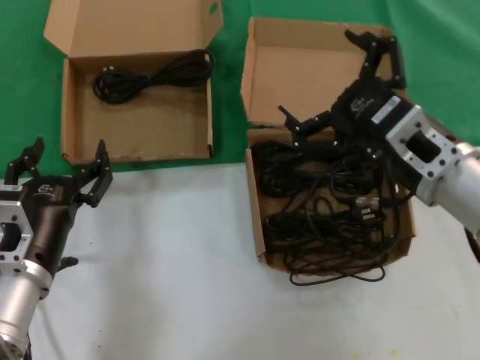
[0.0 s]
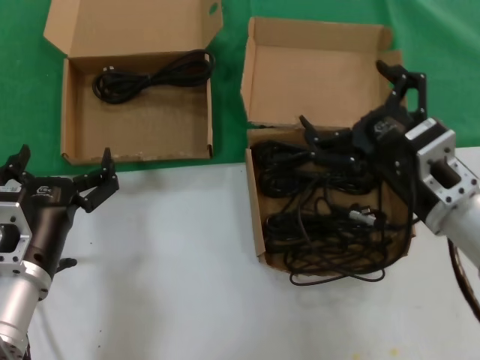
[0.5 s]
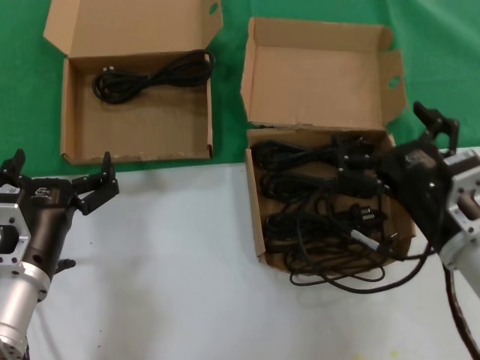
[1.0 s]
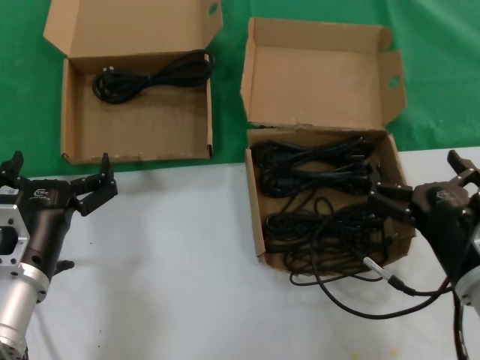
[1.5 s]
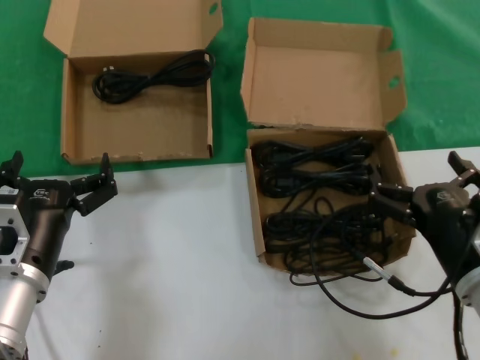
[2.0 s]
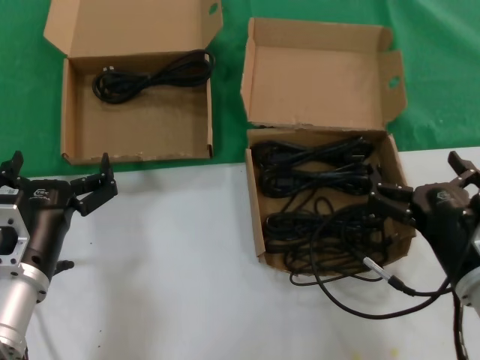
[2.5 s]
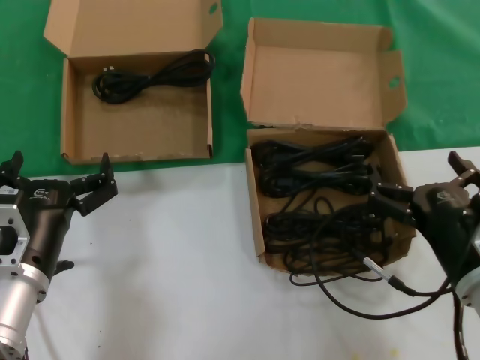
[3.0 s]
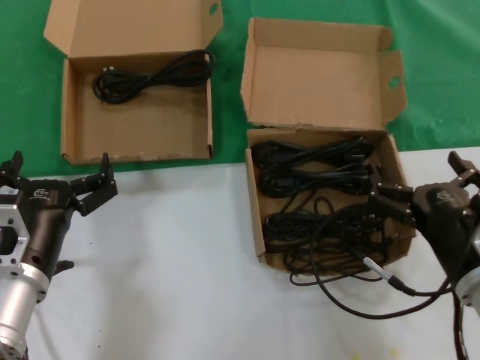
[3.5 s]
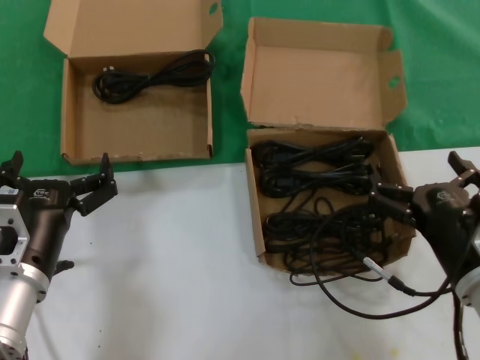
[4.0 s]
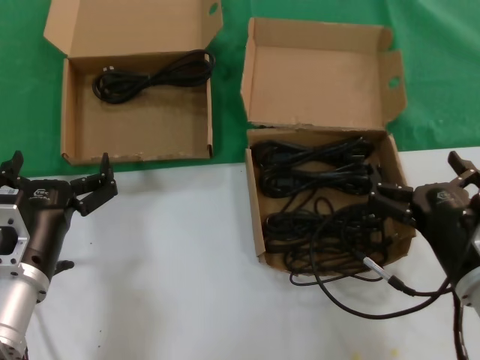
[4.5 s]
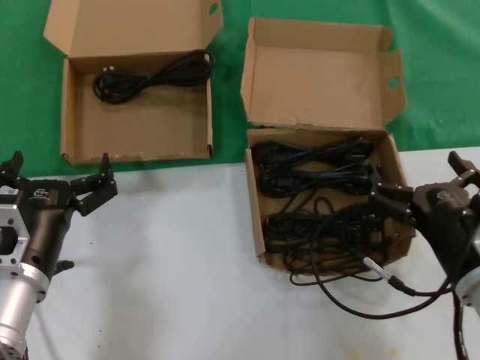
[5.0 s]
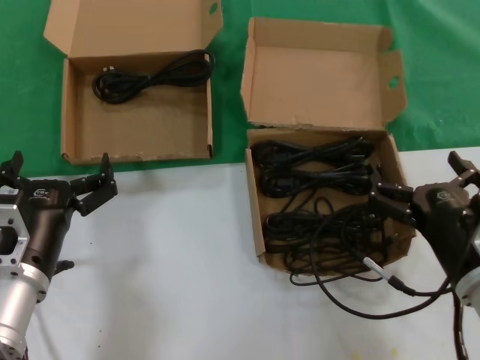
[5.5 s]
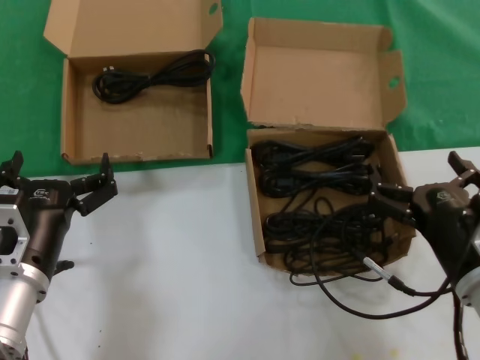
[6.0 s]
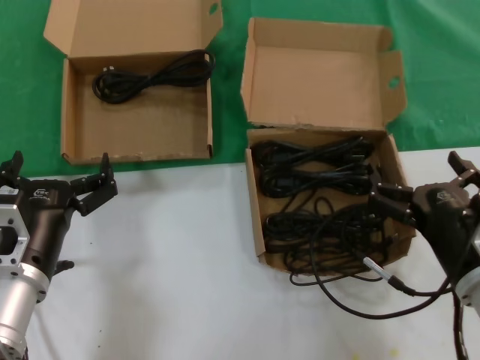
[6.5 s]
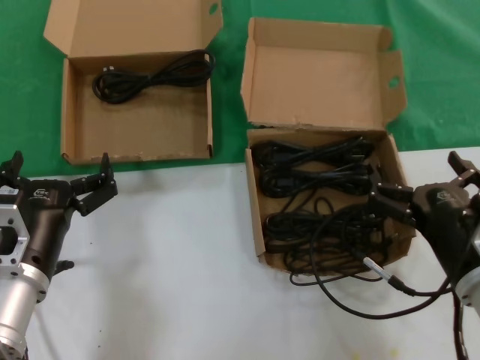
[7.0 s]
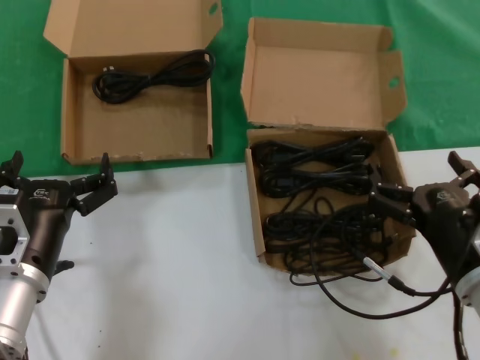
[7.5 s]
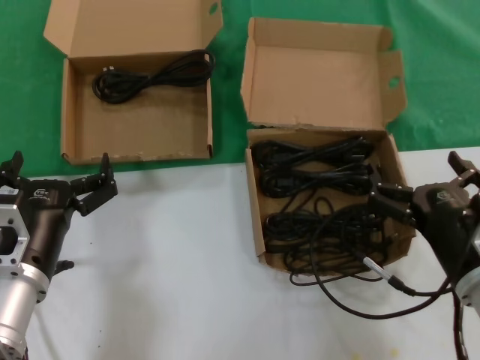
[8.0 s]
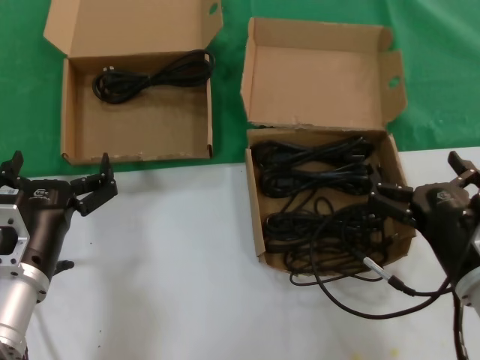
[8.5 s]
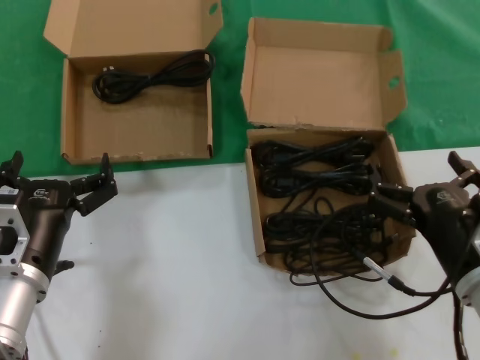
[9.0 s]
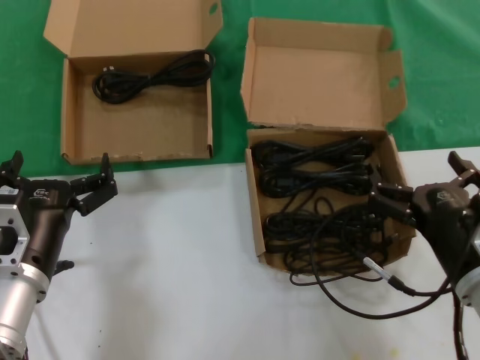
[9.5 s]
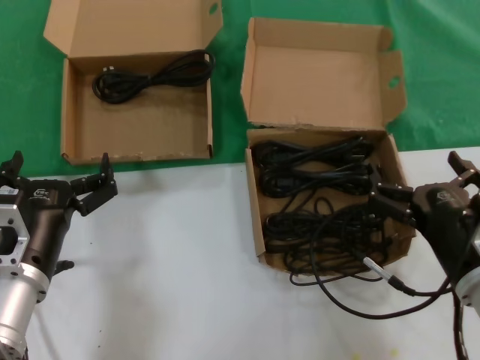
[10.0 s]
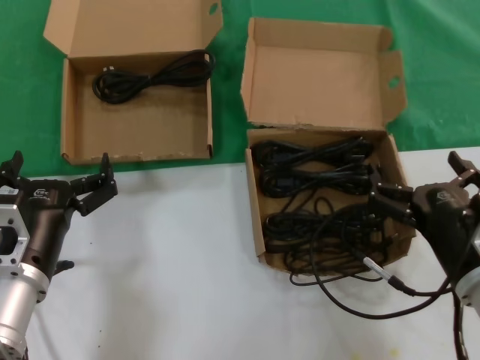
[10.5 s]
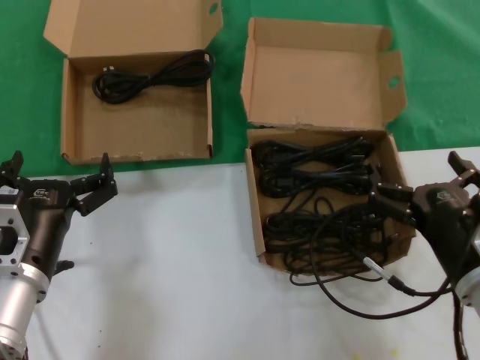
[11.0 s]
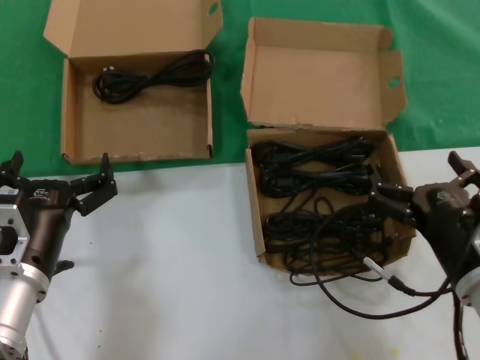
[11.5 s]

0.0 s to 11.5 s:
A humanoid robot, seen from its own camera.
Task of the whole recording: take the parts from the box containing them and put them into an empty box.
0.0 to 2.0 s: The right hand goes roughly 15 cm downward and backward.
2.0 to 11.5 s: Neither hand changes place.

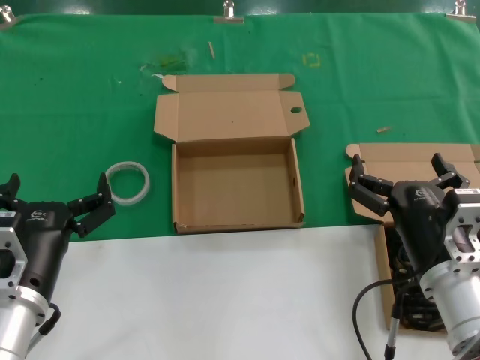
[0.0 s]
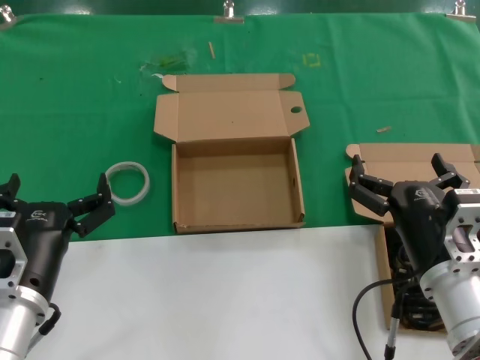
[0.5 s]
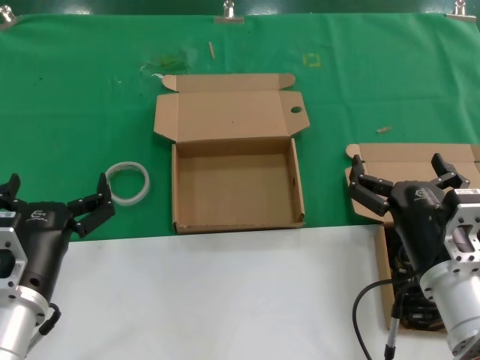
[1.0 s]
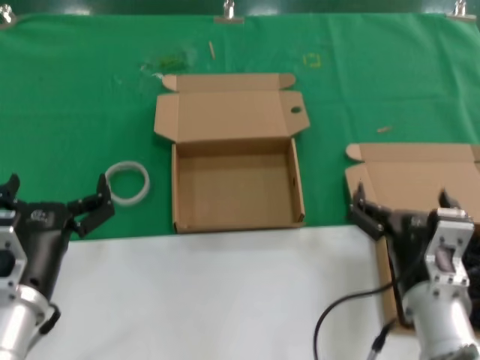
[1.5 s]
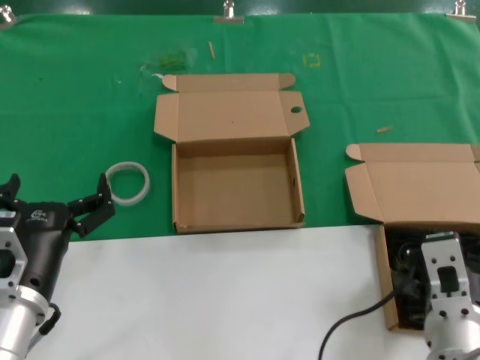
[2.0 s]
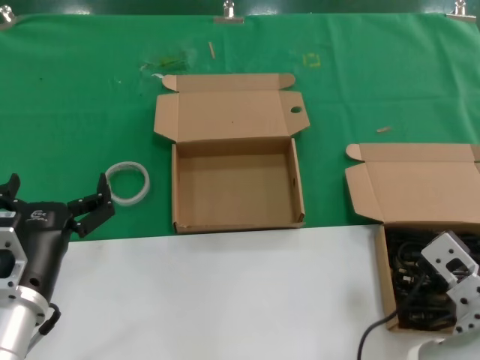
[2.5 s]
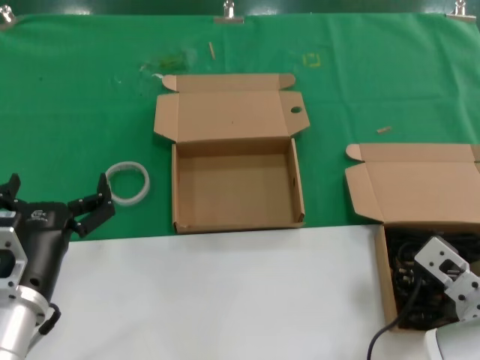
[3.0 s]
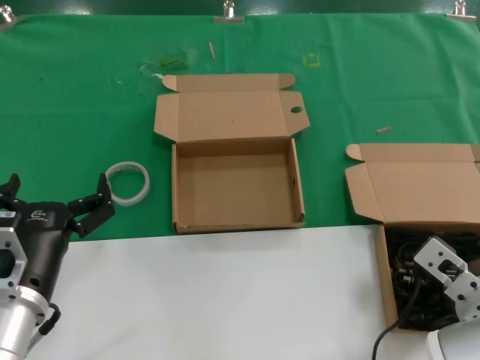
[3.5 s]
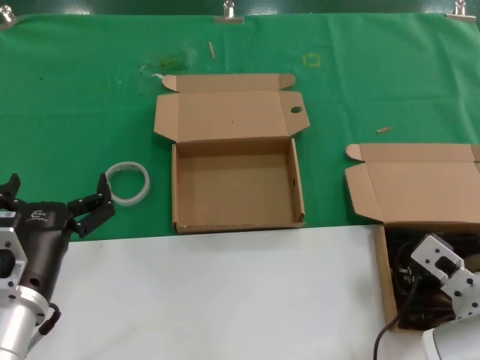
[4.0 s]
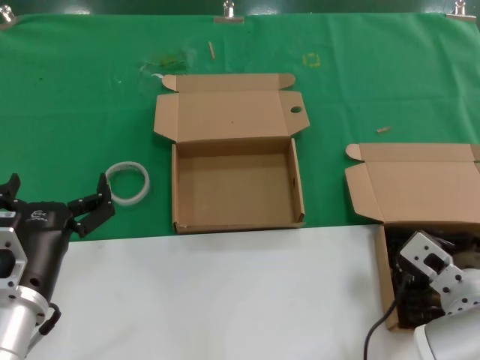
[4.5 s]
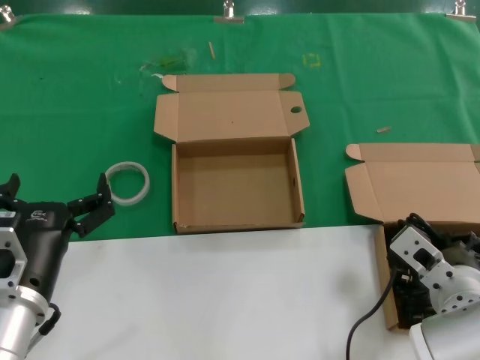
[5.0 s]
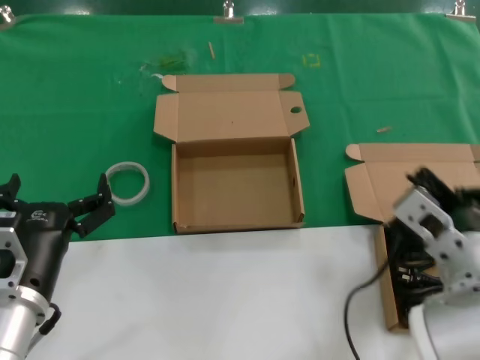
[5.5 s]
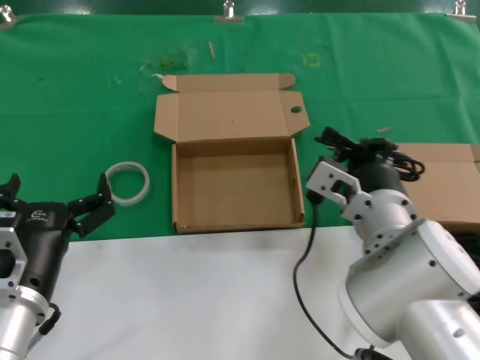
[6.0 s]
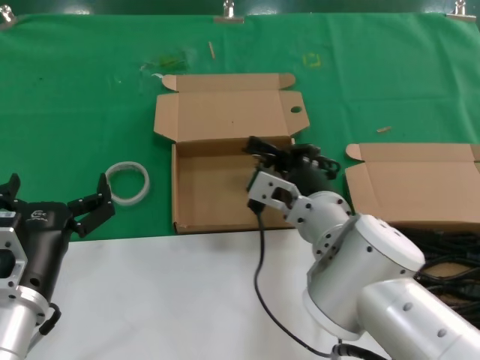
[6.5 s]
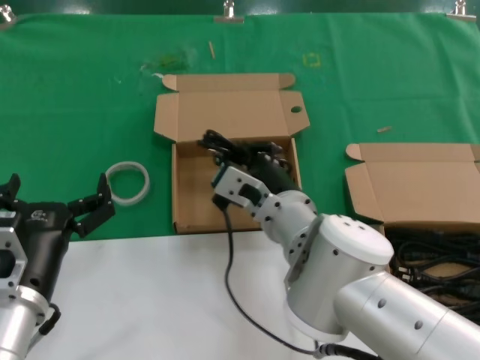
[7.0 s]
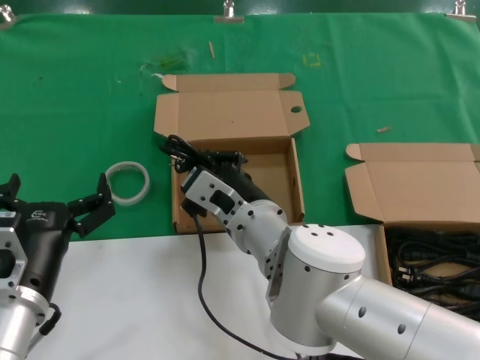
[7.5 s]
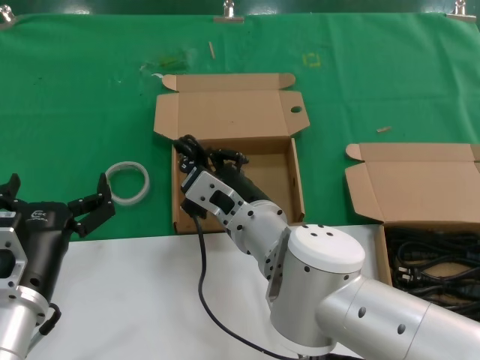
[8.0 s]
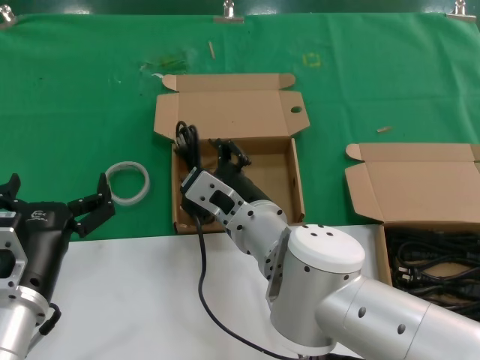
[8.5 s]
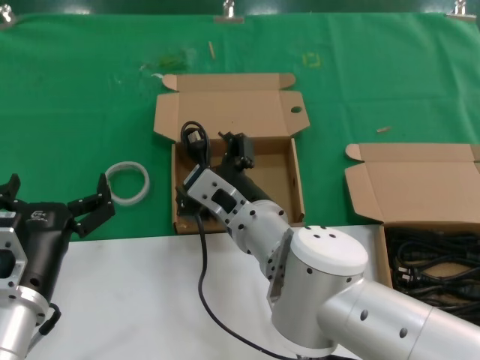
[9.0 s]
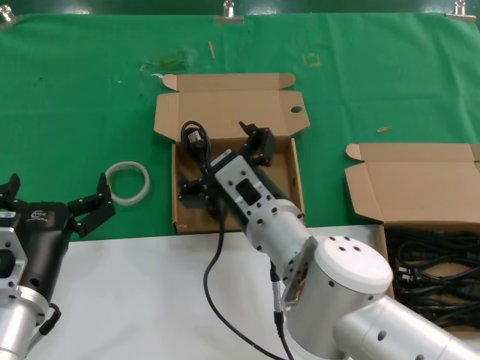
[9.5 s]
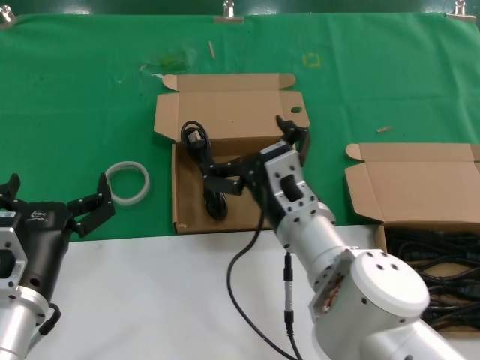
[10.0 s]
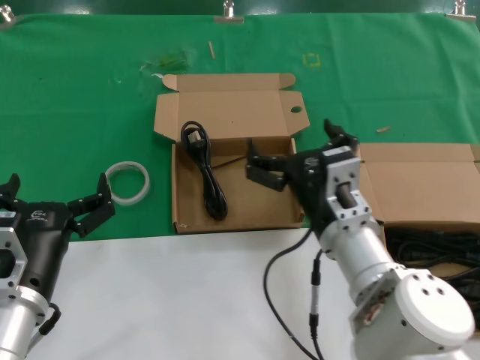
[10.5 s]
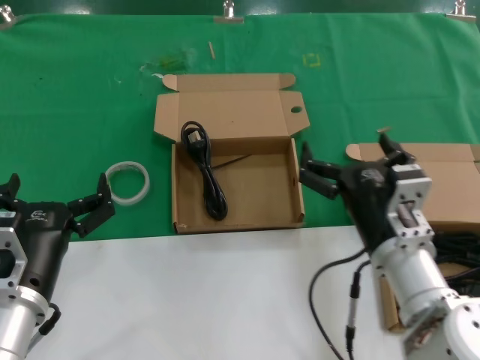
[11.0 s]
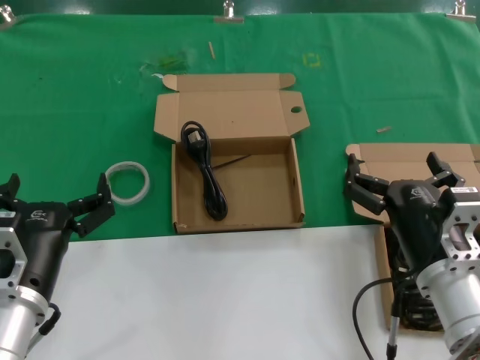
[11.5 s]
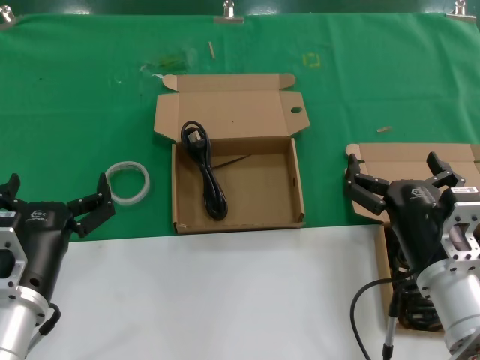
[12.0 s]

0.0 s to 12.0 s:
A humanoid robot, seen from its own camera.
Task of the whole recording: take the parts from the box containing them and put them into an empty box.
Step, 0.0 to 5.0 s: Grasp the data cable.
Step, 5.5 to 9.0 s: Place the data cable in the another box.
0.0 to 2.0 s: The right hand goes about 5 cm to the left.
2.0 to 4.0 s: The right hand goes about 10 cm to the right and forward.
4.0 to 6.0 s: The right hand travels to the left, upward and forward by about 15 cm.
6.0 to 8.0 s: The right hand is displaced to the left by roughly 10 cm.
8.0 to 10.0 s: The right hand shifts approximately 5 cm to the right.
10.0 to 12.0 s: The right hand is displaced to the right and backward by about 15 cm.

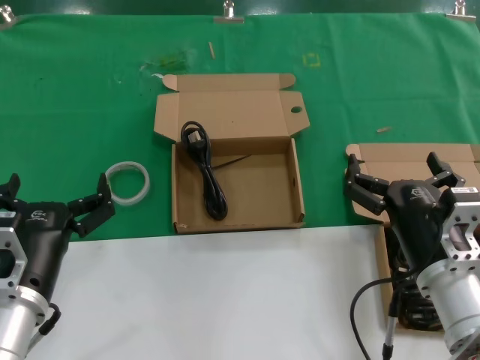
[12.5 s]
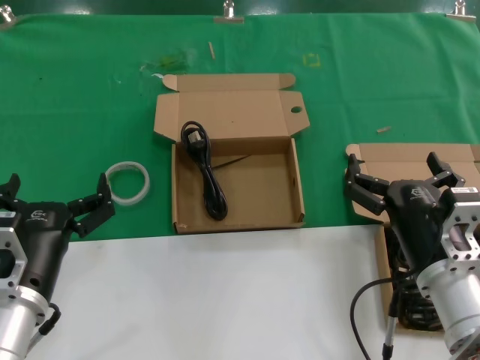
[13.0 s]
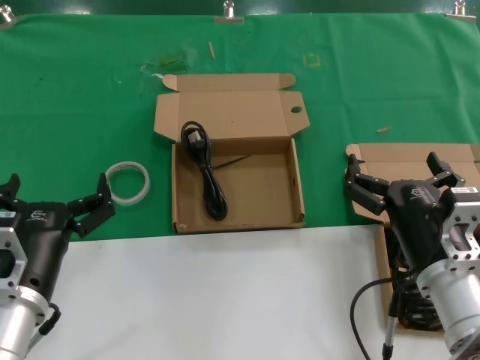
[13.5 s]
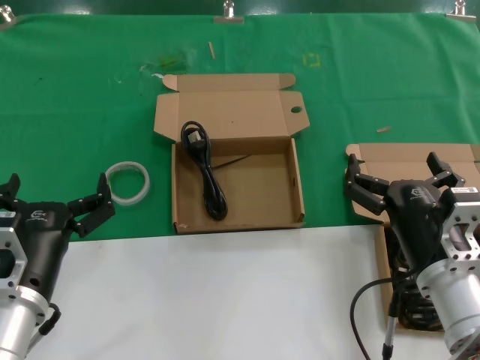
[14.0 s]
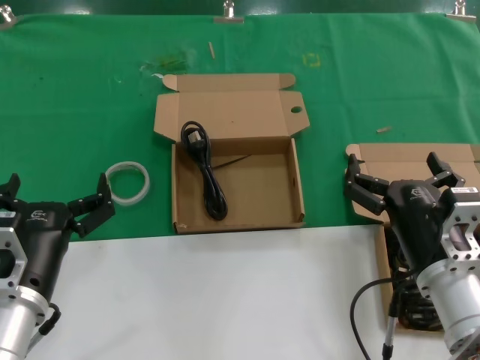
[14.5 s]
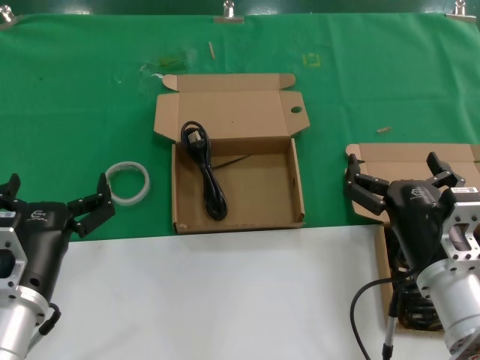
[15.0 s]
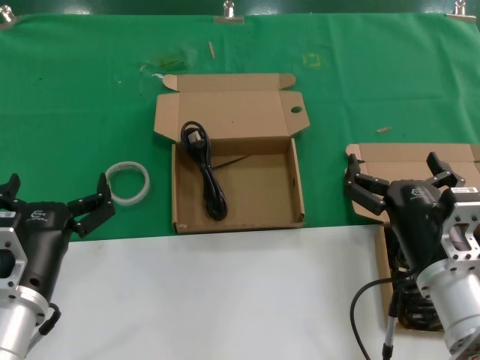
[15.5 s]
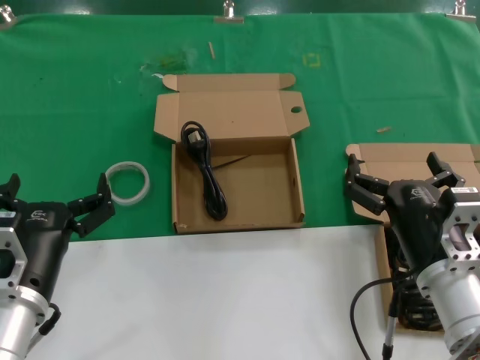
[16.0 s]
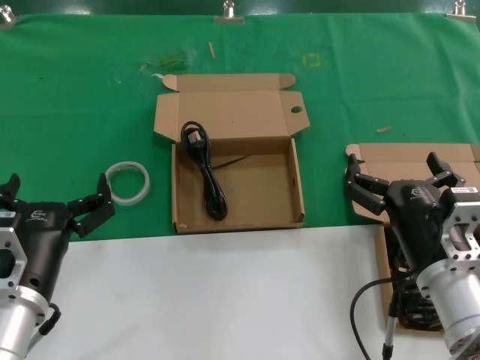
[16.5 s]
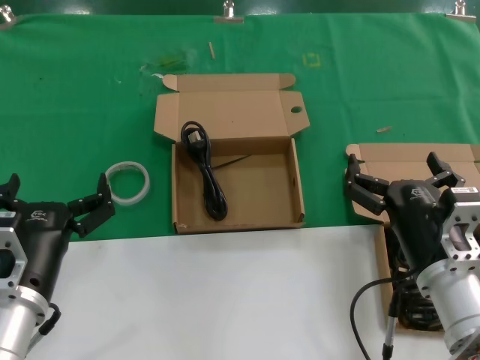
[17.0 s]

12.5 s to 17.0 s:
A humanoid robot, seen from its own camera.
Task of the whole recording: take the parts from the box containing them and put them into an empty box.
12.5 to 17.0 s: Both hands stay put.
